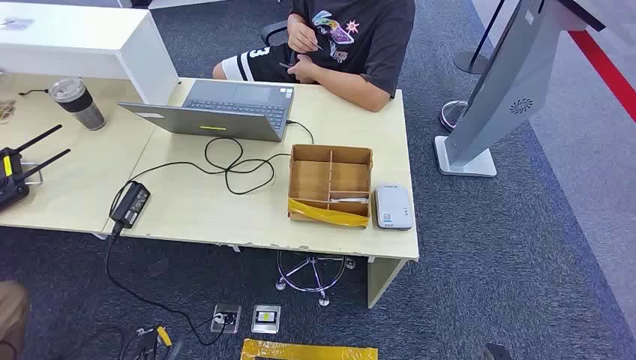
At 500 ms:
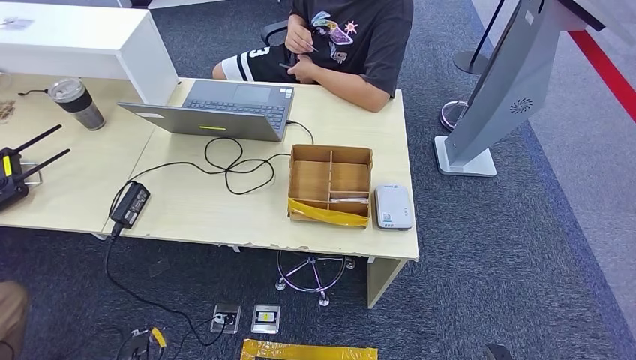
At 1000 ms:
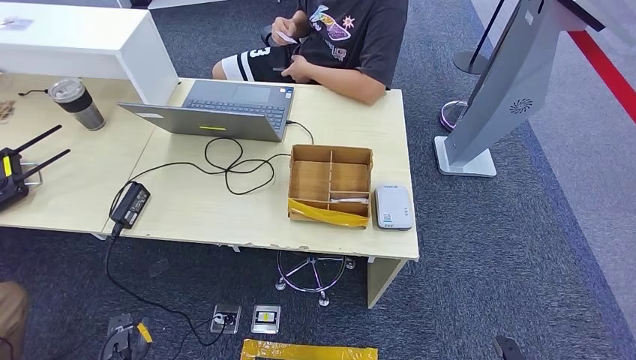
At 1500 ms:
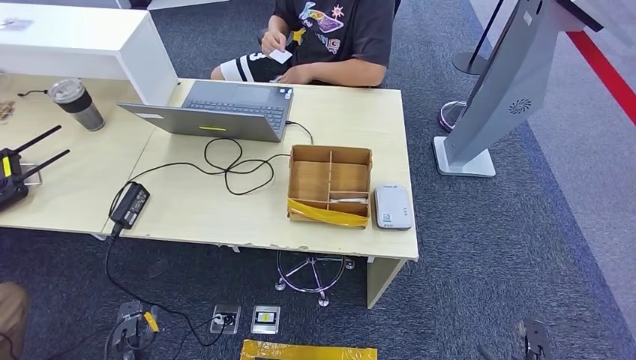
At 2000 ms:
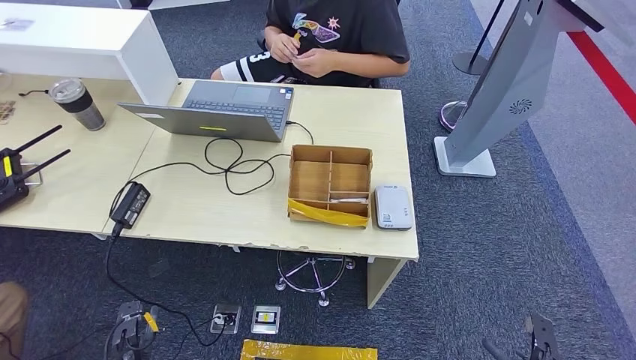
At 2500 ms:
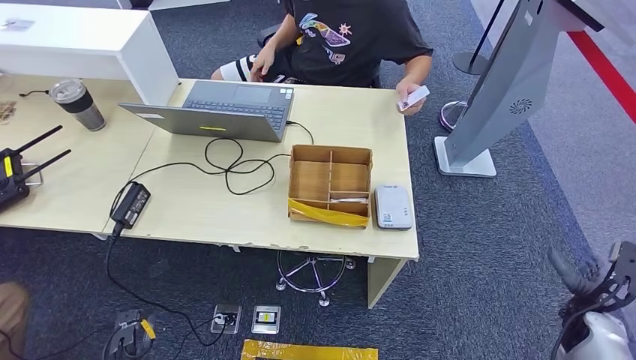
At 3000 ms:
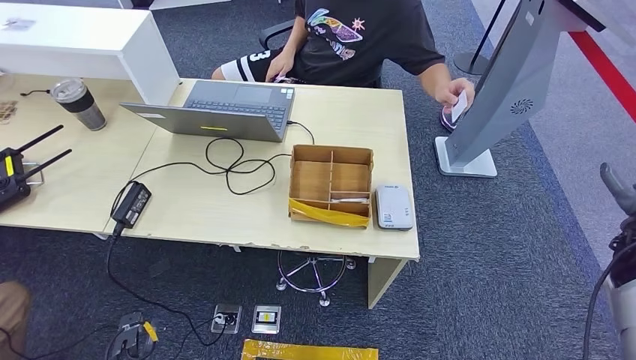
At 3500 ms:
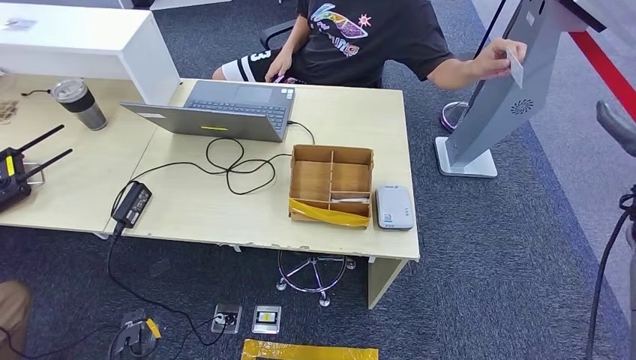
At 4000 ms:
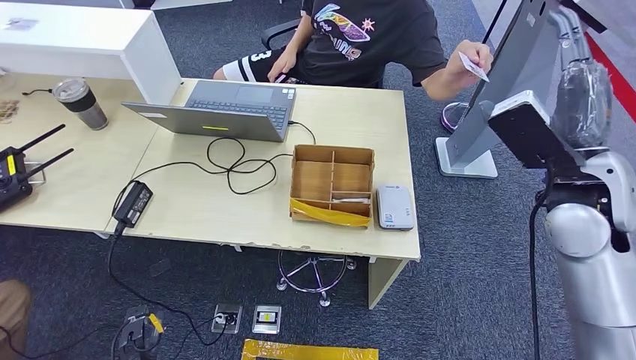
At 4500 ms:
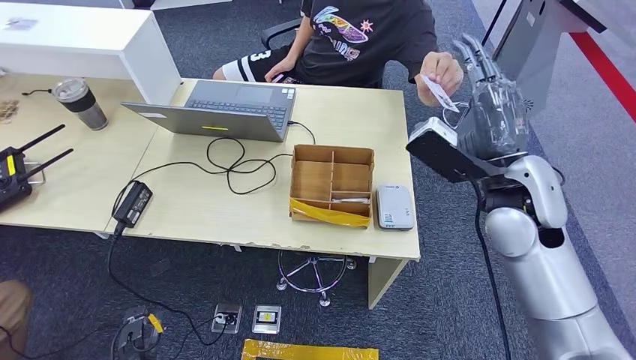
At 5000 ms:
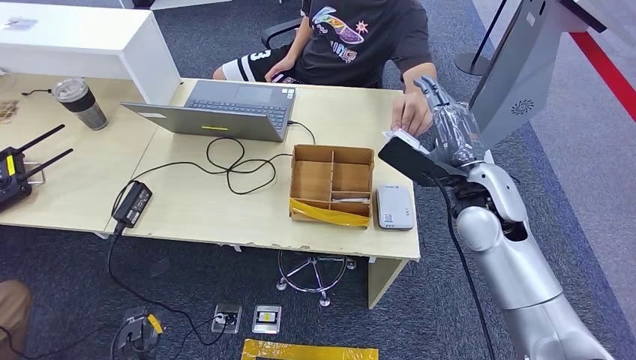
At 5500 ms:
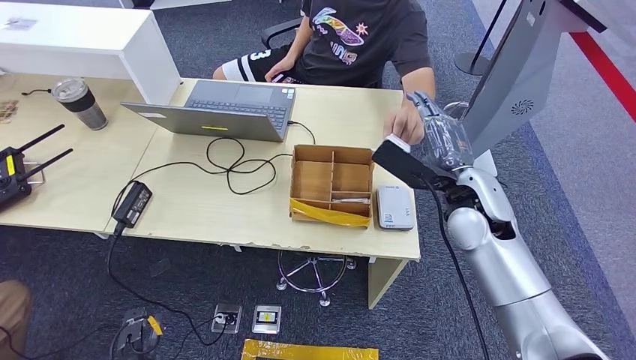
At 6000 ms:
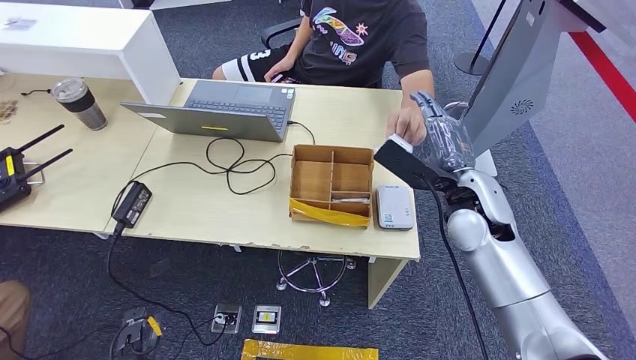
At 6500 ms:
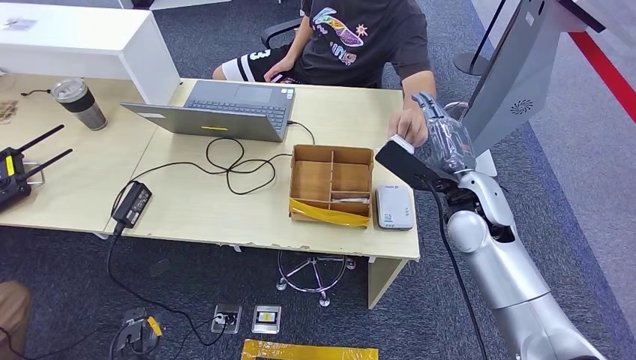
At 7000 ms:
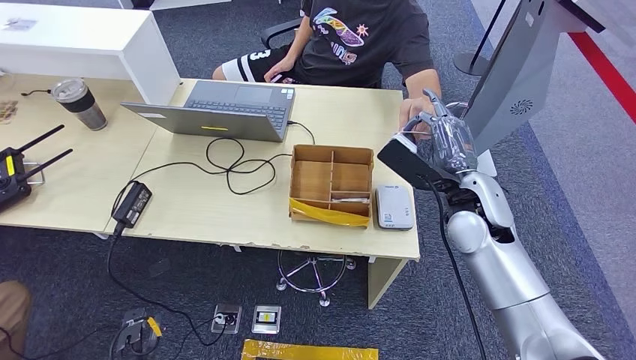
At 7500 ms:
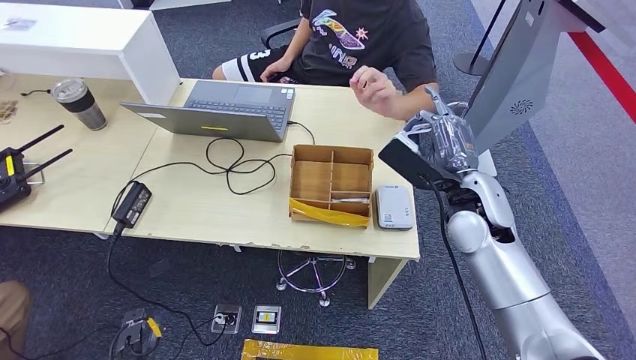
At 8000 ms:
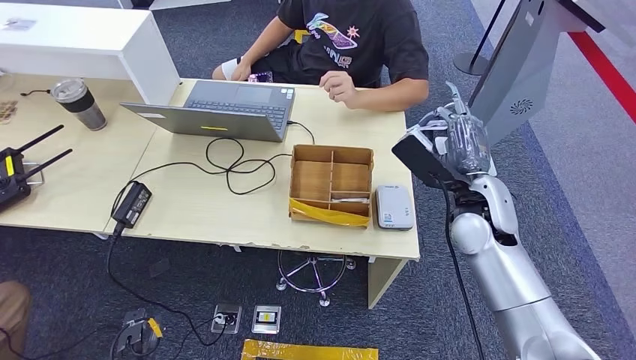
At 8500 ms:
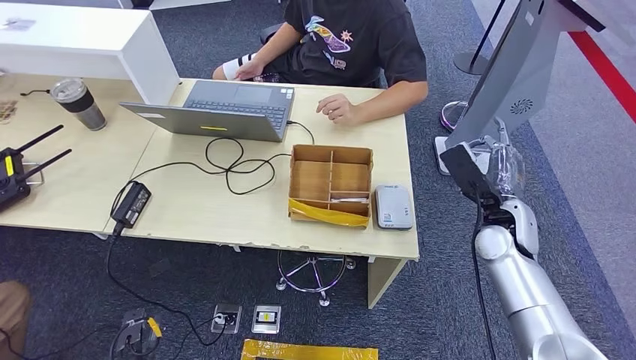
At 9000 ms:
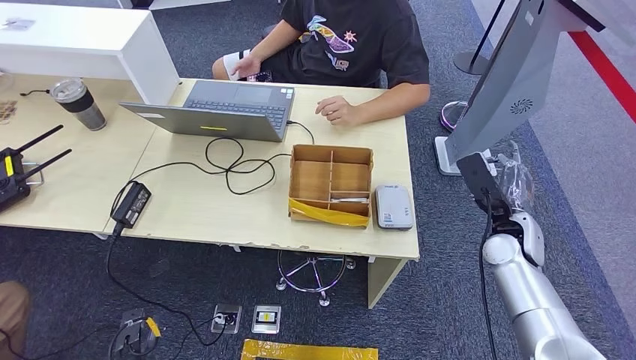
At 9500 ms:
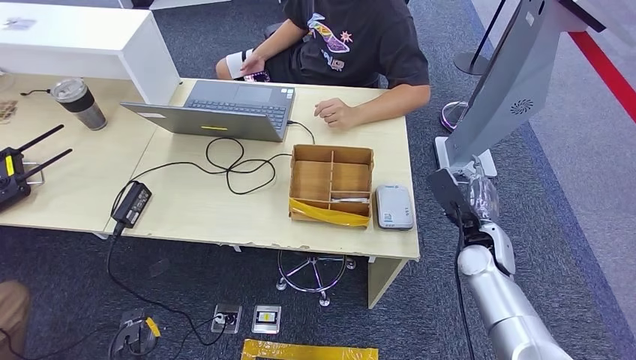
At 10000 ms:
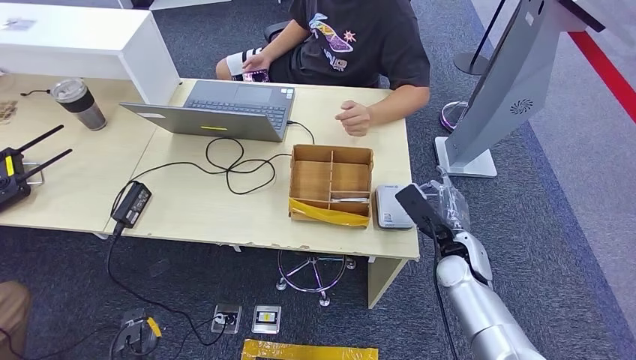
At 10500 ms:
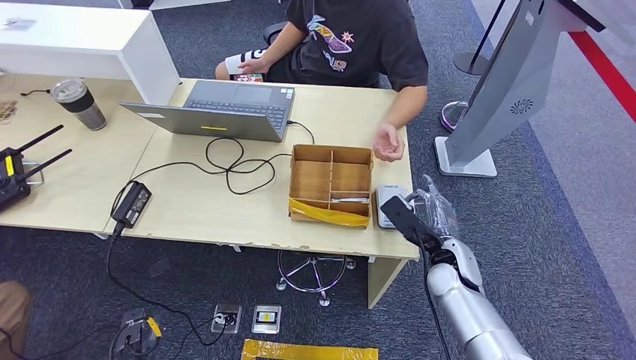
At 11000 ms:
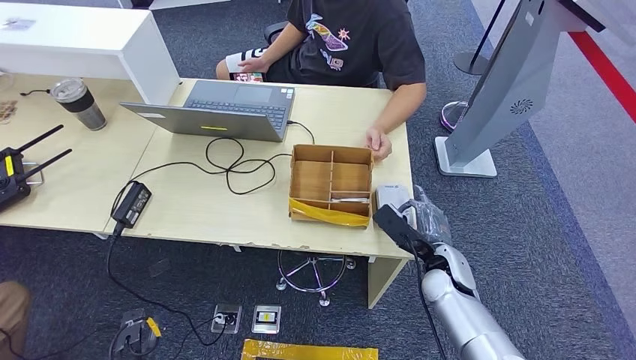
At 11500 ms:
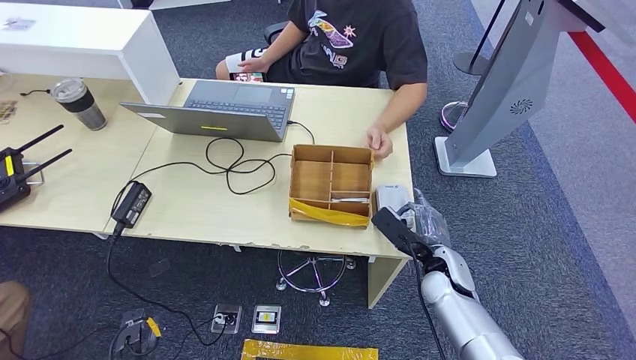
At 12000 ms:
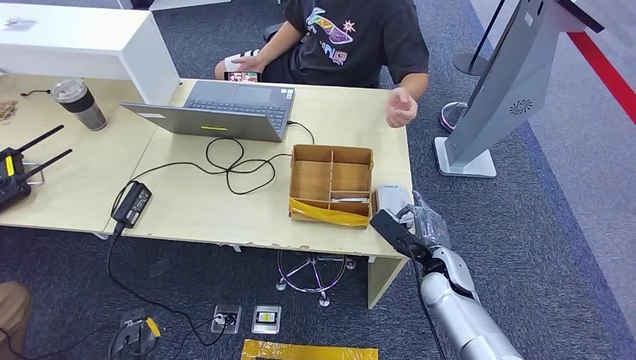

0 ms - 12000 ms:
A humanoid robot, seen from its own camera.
Step, 0 ms - 8000 ms: Take the ID card from the person's hand.
Step, 9000 ms - 11500 ms: Place the ID card on the card reader.
6000 ms - 8000 ms: The hands stay close to where they were, moving slightly.
8000 ms - 10000 ms: The right hand heads downward, covering approximately 15 cm.
10000 ms - 12000 ms: There are only small adjustments of the hands.

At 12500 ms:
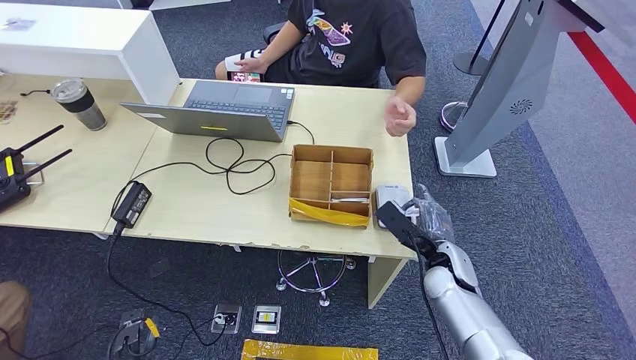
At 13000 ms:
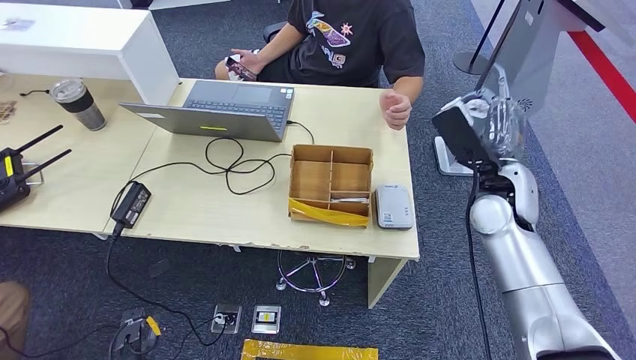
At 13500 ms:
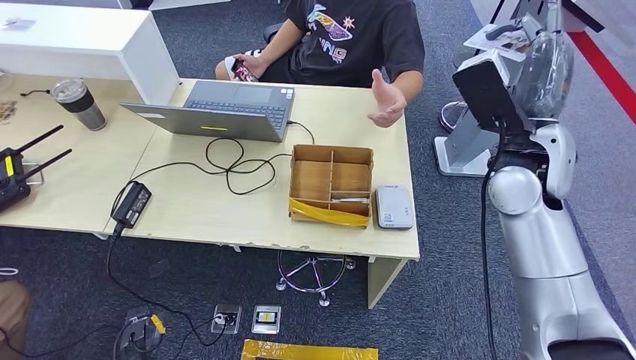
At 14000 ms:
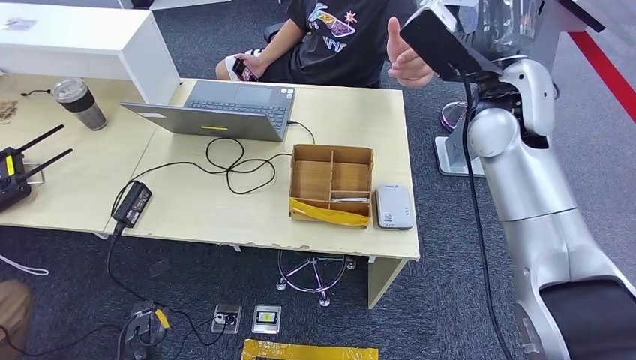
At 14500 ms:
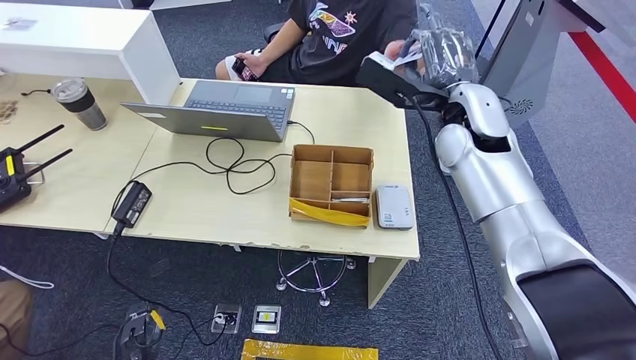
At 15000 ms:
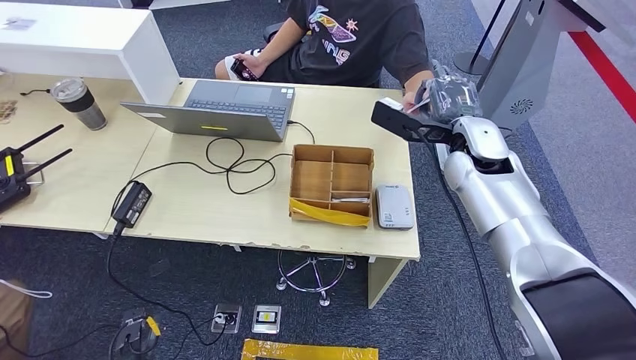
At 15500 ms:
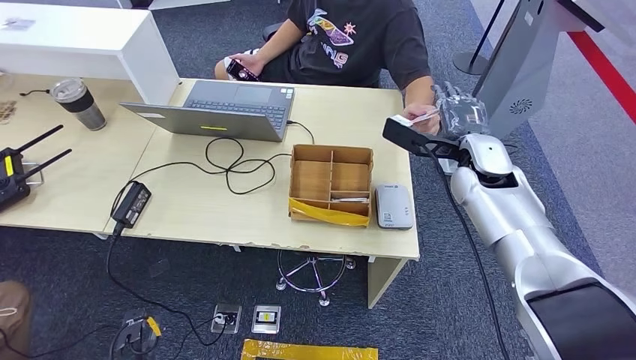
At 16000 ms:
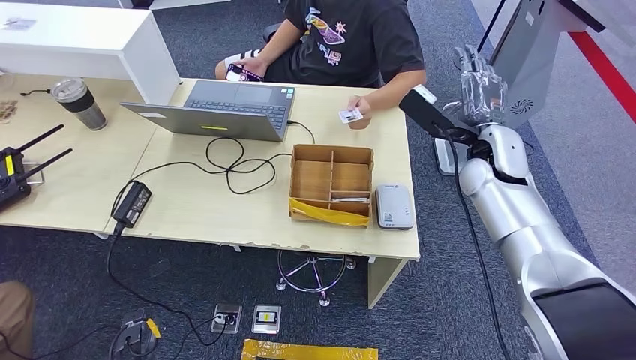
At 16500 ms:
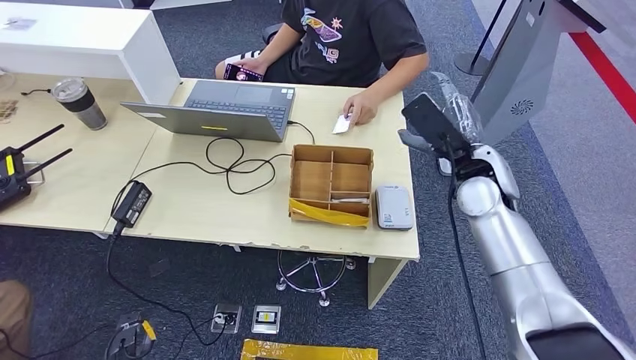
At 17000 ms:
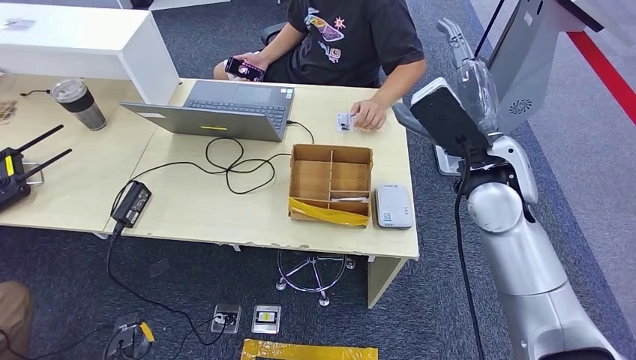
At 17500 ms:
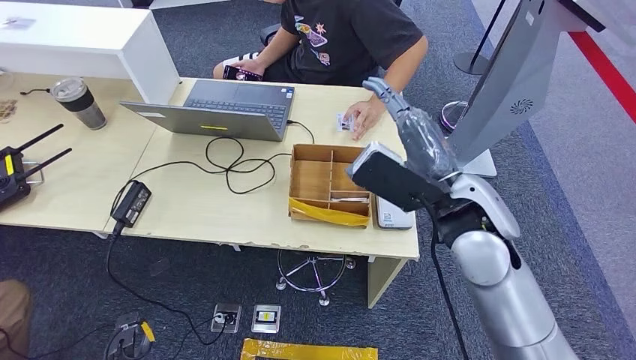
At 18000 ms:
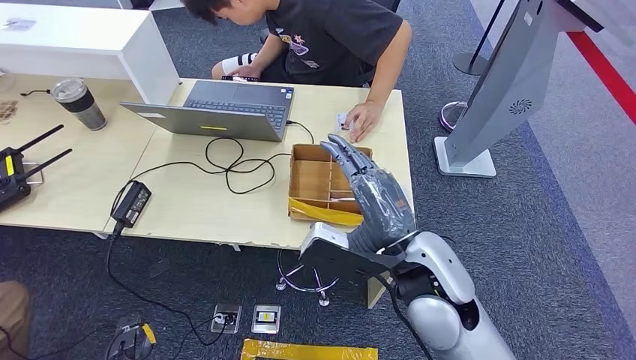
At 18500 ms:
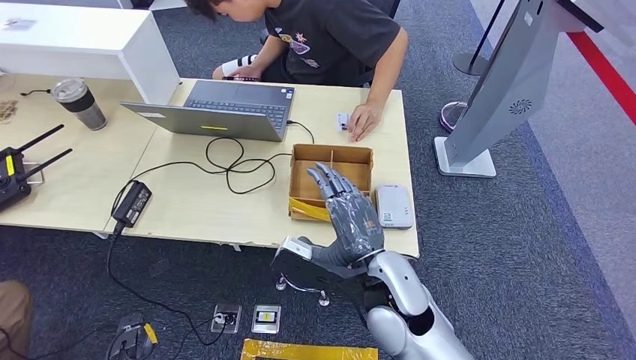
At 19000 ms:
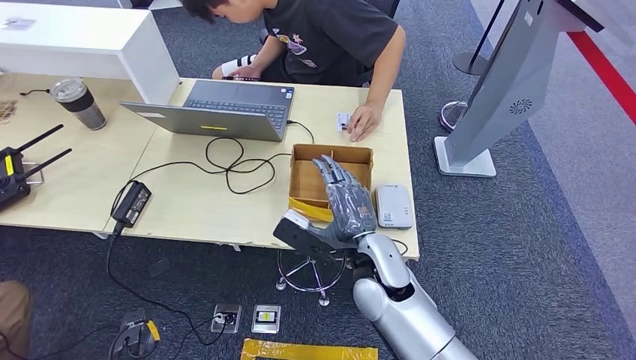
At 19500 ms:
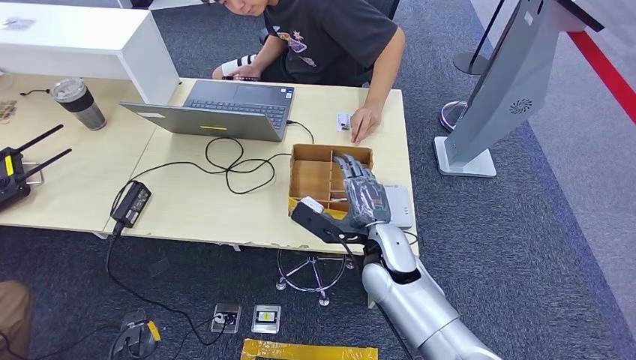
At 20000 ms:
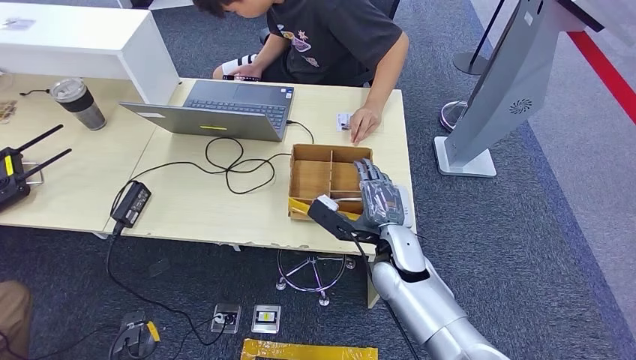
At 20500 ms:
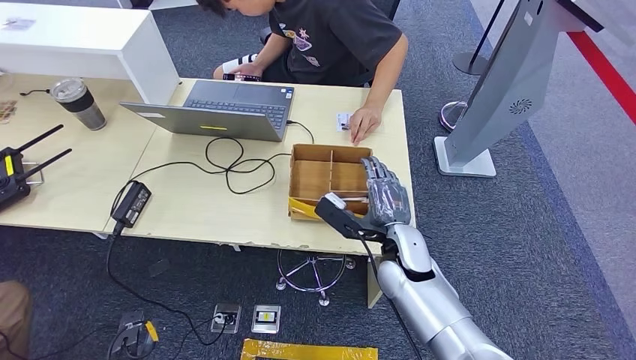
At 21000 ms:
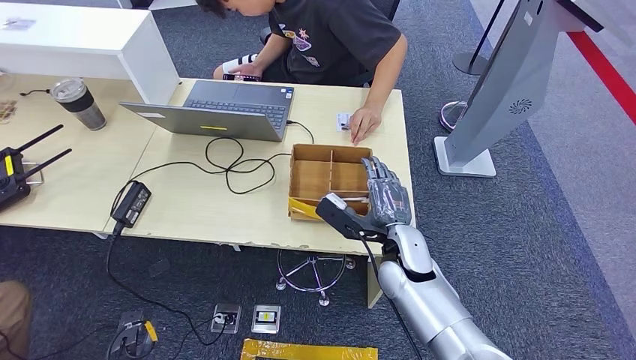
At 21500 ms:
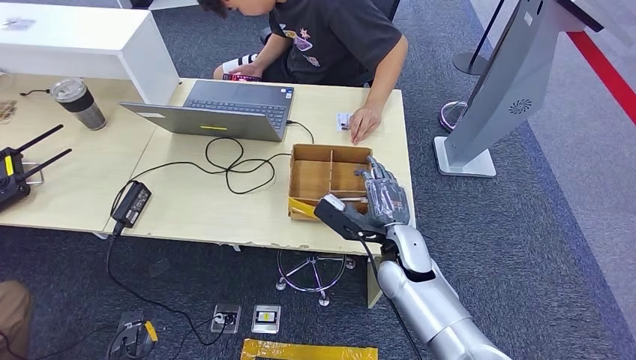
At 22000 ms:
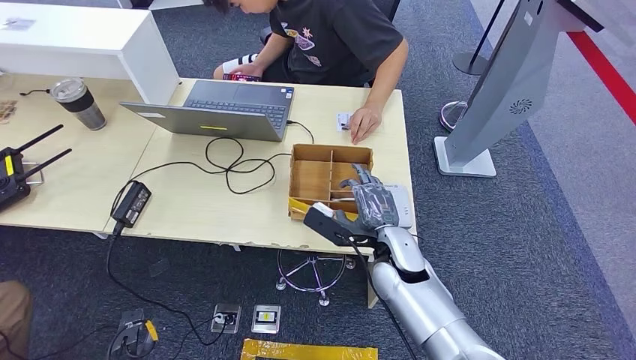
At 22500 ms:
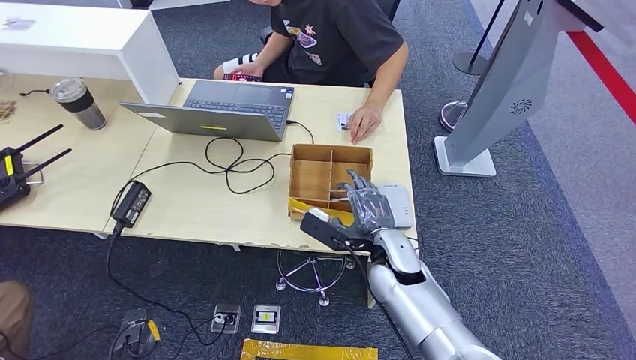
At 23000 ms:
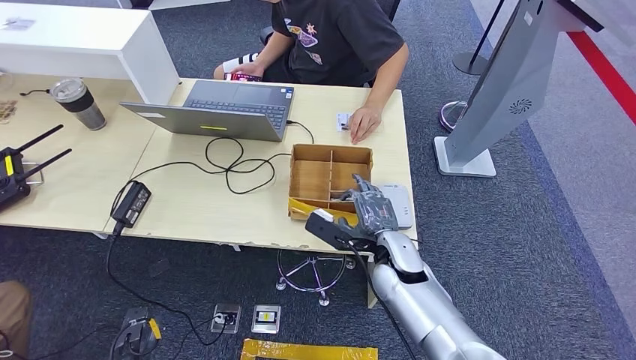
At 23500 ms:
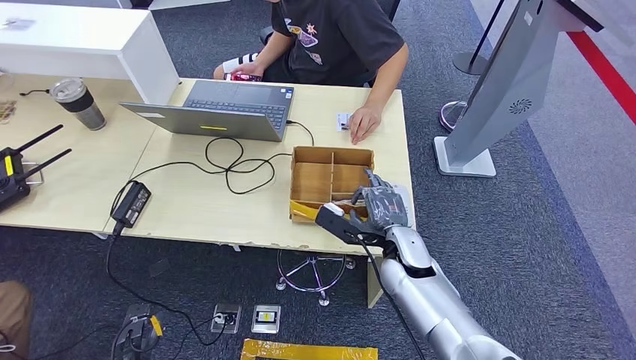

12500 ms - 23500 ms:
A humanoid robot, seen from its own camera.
Step, 12500 ms - 15500 ms: Hand the ID card to the person.
12500 ms - 14500 ms: The right hand goes some 30 cm upward and forward.
14500 ms - 16000 ms: The right hand travels downward and to the right by roughly 10 cm.
18000 ms - 20000 ms: The right hand is displaced downward by approximately 10 cm.
20000 ms - 21500 ms: Neither hand changes place.
21500 ms - 23500 ms: The hands stay close to where they were, moving slightly.
